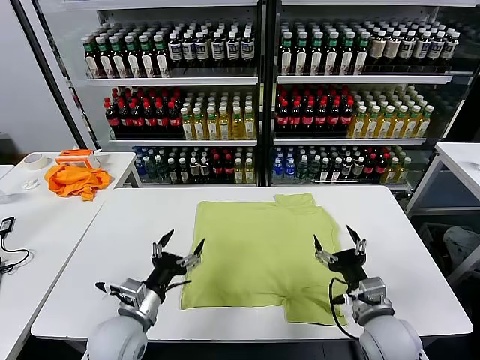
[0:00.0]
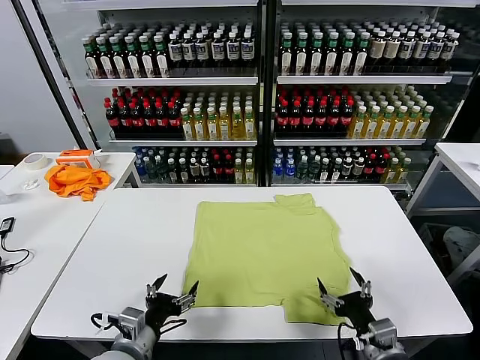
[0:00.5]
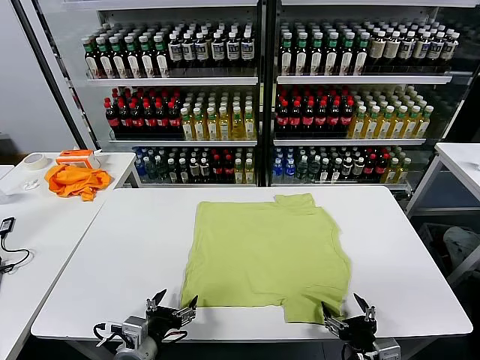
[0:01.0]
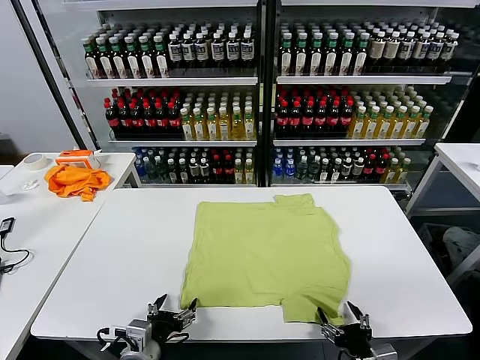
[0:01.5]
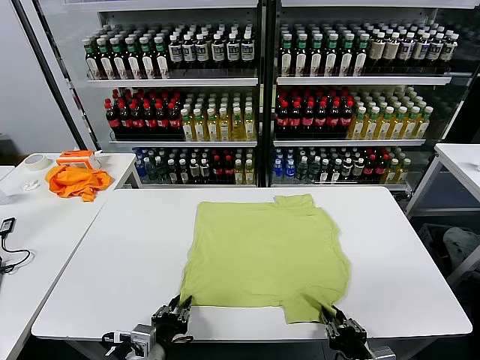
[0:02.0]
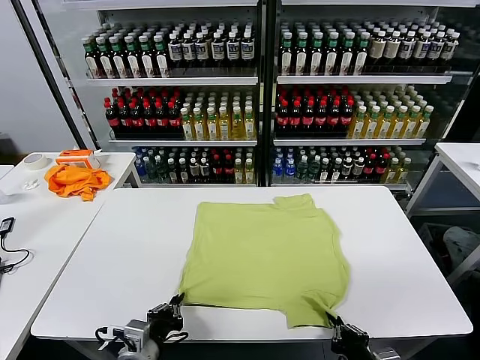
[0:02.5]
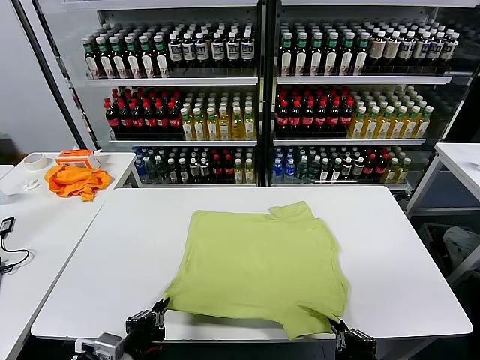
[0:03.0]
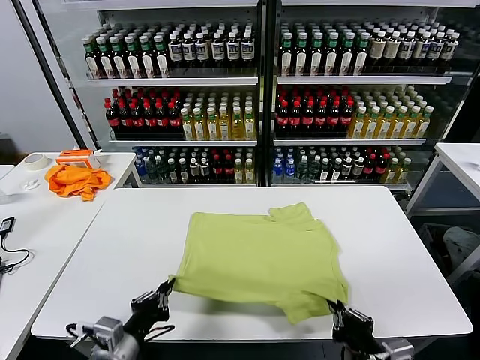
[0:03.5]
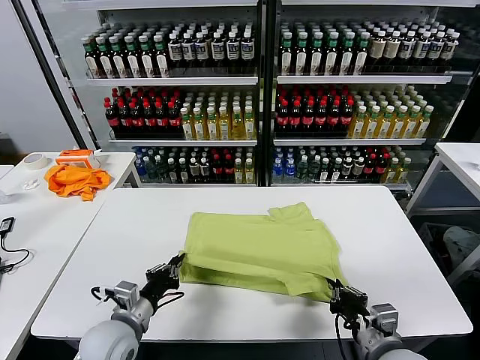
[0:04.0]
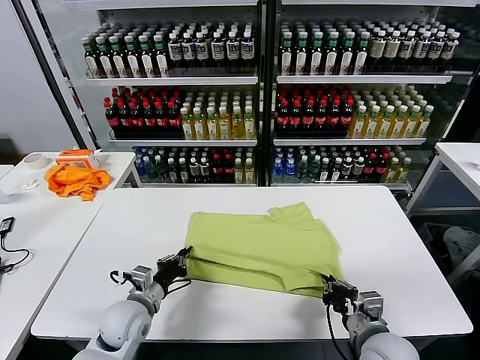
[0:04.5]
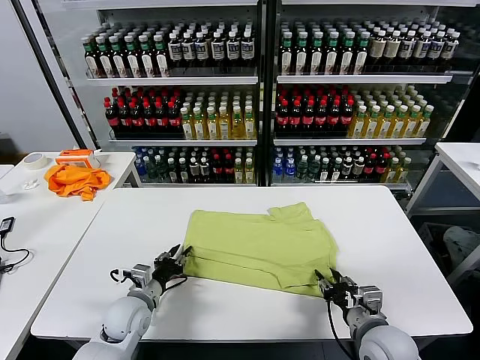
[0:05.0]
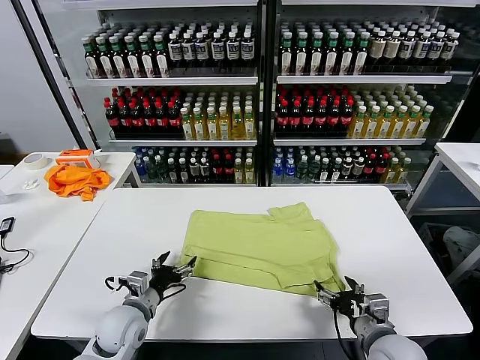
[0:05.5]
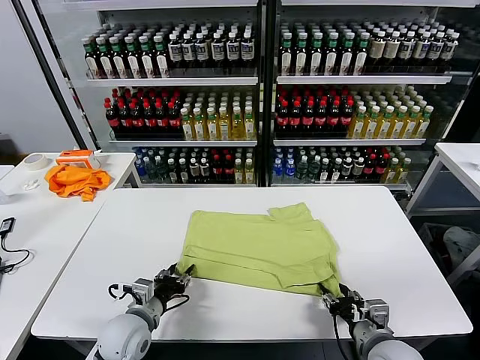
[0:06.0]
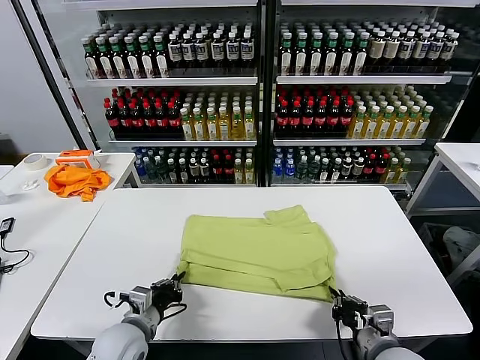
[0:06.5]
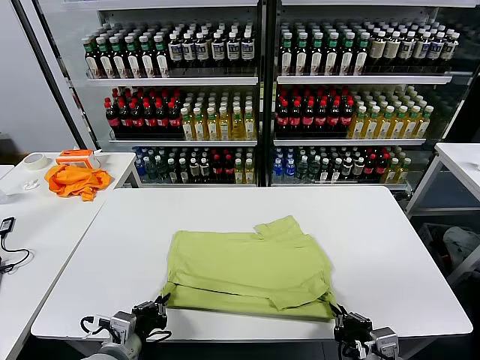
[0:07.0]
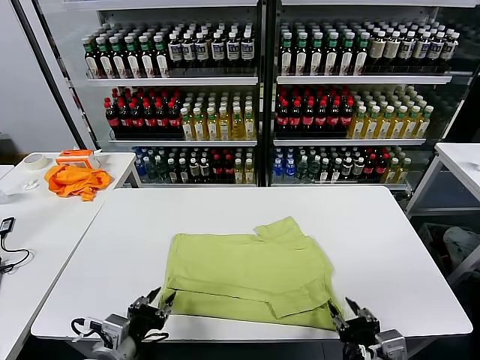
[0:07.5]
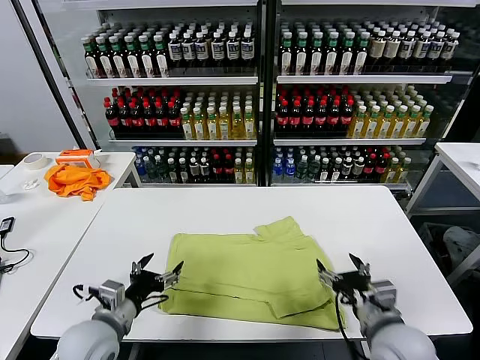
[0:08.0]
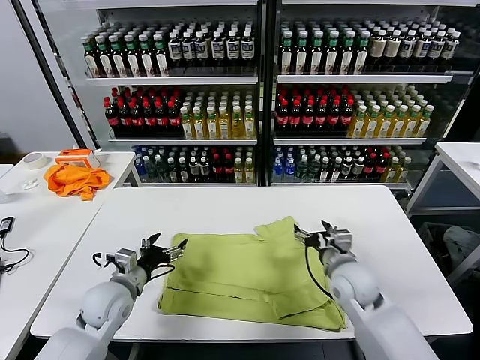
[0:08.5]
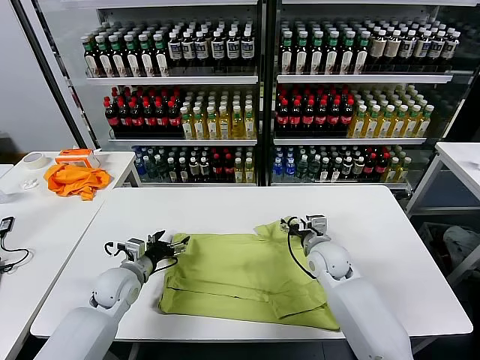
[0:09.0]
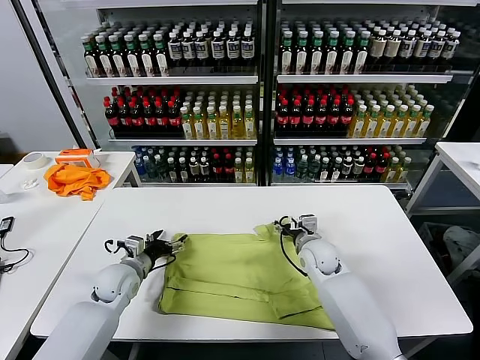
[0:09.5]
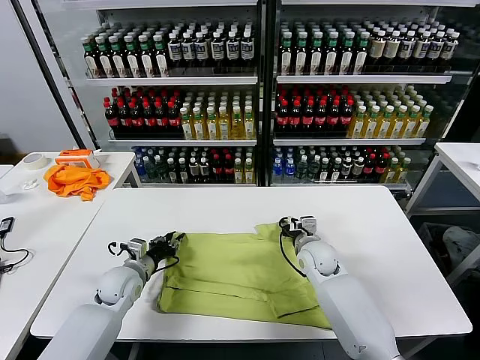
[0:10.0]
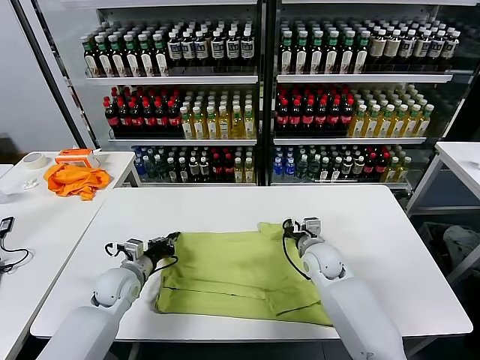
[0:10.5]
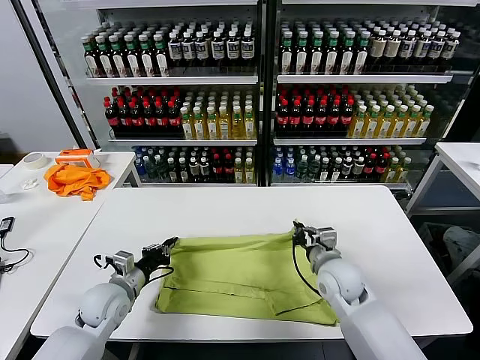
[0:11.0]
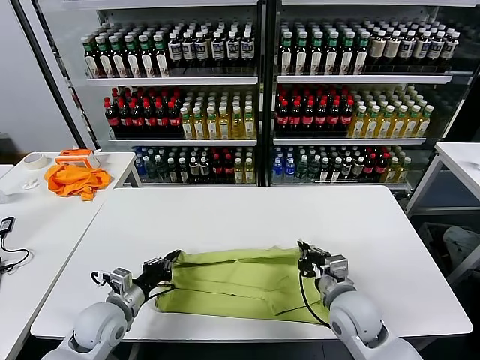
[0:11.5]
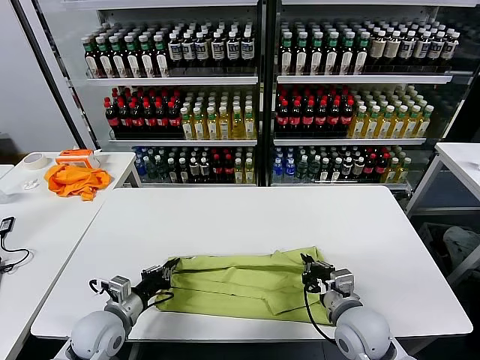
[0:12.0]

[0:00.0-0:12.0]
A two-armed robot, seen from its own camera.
Task of the whole recording: fold and organize the clothes.
Step, 0:00.0 to 0:02.0: use both grippers simultaneously to clamp the lower edge of the clothing fabric.
Step, 0:02.5 to 0:04.5: use both grippers to drag the lower edge of the fabric forward and fold it over the upper edge.
Step, 0:05.0 to 0:07.0: Drag the clothes downward with both gripper.
Step, 0:07.5 to 0:10.0: use both grippers simultaneously to clamp the upper edge of the clothing fabric.
0:02.0 to 0:04.0: The left gripper shifts roughly 10 cm forward, while the right gripper moves forward and upward, roughly 10 cm.
0:04.0 to 0:06.0: The right gripper opens its fingers; the left gripper opens up.
0:06.0 to 0:08.0: Both grippers move upward, about 5 cm. The left gripper moves about 10 cm backward and comes back, and opens its fingers, while the right gripper opens up.
0:08.0 to 0:10.0: The right gripper heads forward, covering approximately 20 cm, and closes, while the left gripper is displaced forward and downward by some 15 cm, and closes up.
0:10.0 to 0:12.0: The right gripper heads backward, covering approximately 20 cm. The left gripper travels backward by some 10 cm.

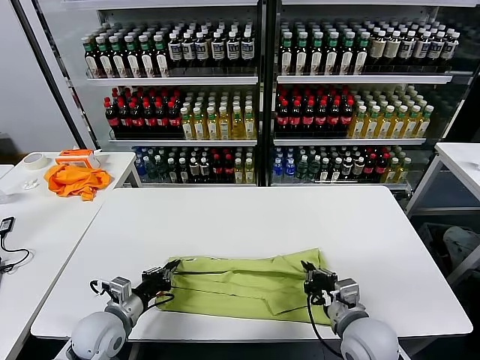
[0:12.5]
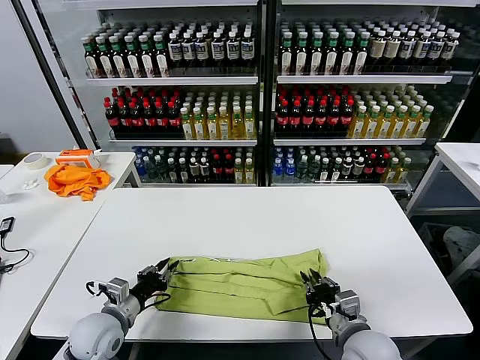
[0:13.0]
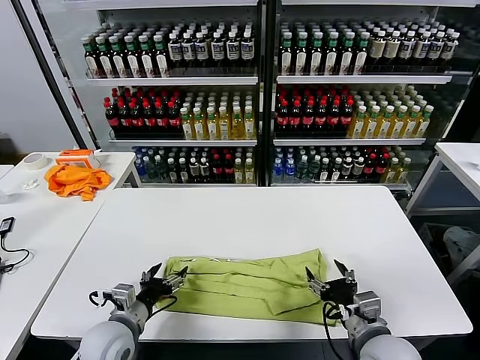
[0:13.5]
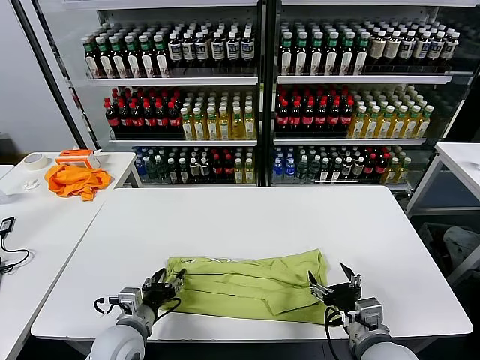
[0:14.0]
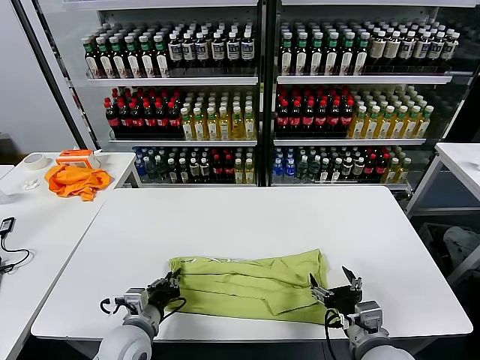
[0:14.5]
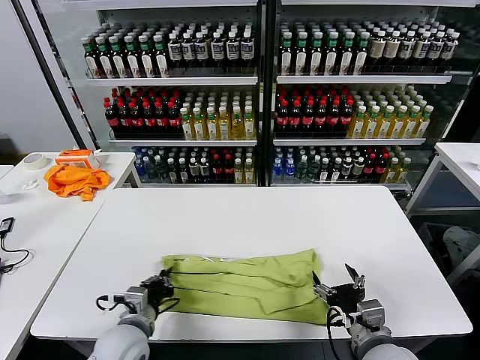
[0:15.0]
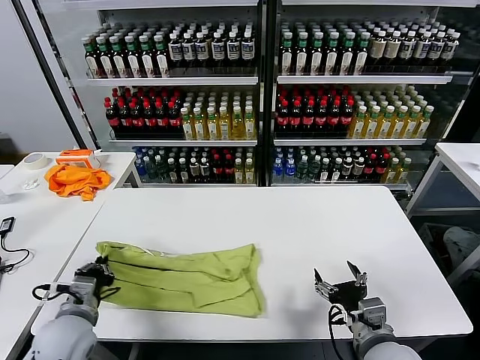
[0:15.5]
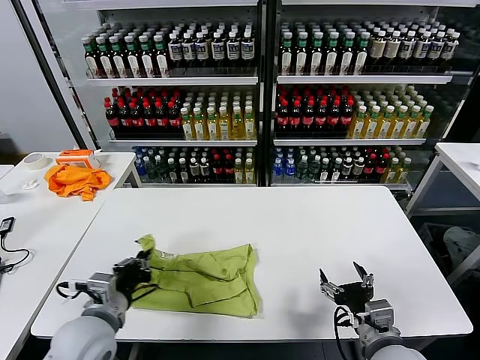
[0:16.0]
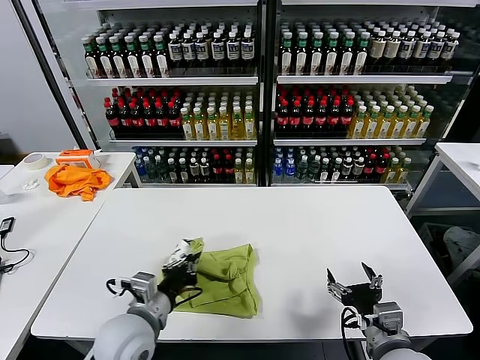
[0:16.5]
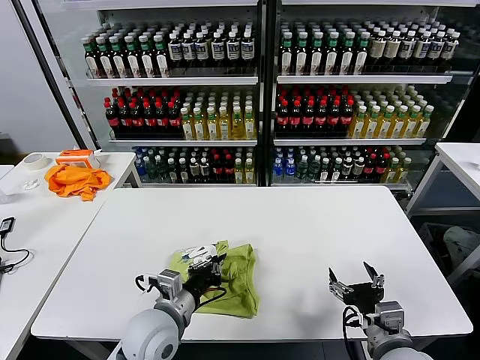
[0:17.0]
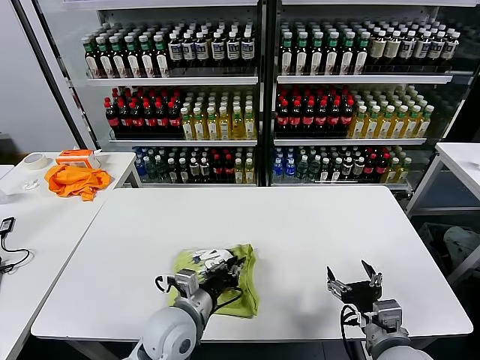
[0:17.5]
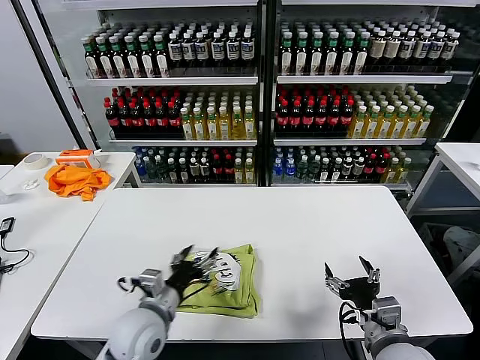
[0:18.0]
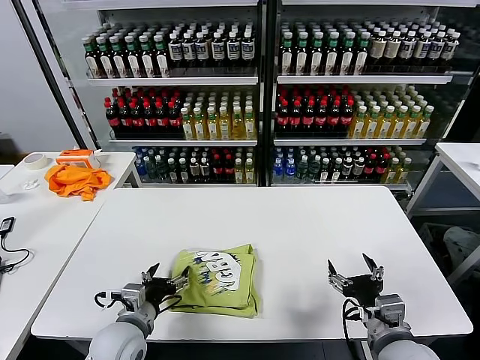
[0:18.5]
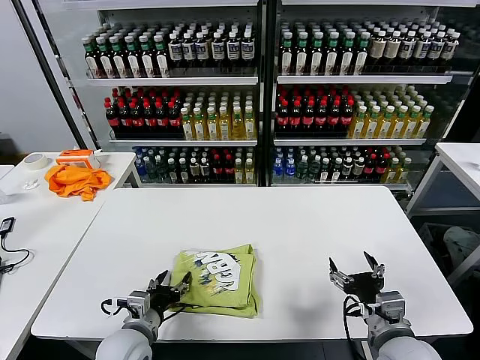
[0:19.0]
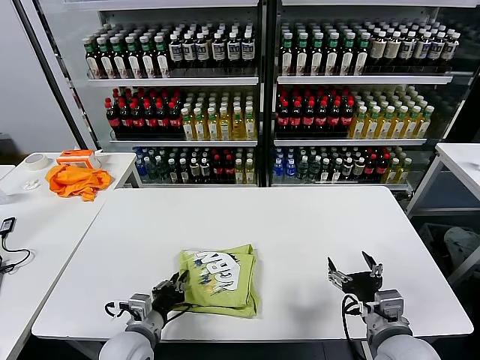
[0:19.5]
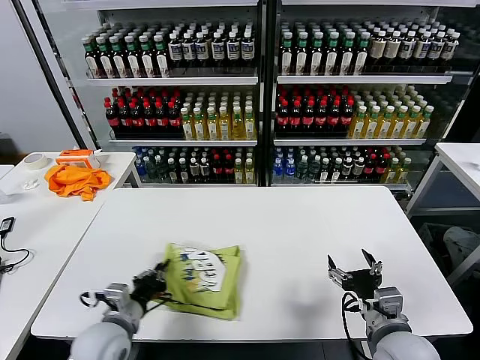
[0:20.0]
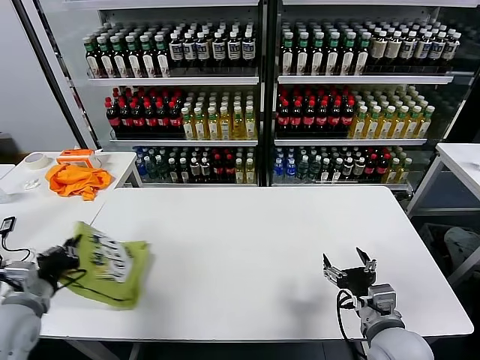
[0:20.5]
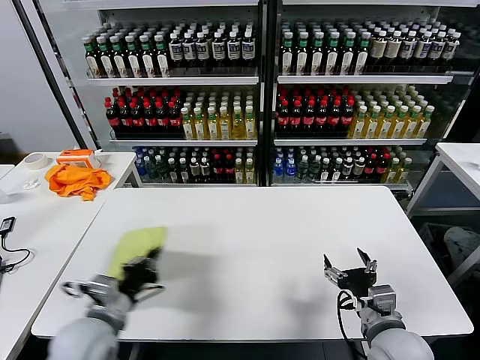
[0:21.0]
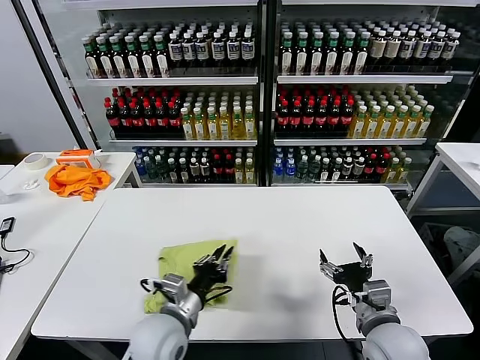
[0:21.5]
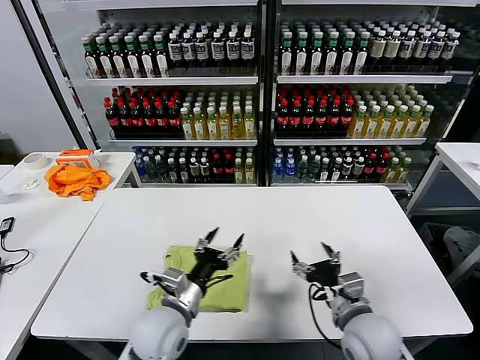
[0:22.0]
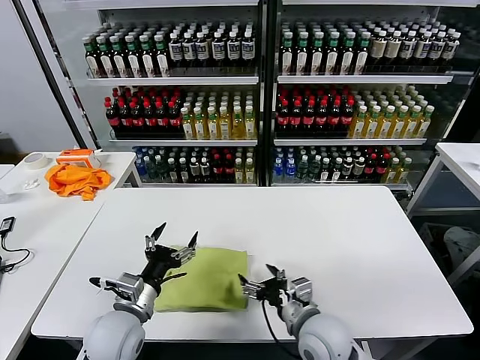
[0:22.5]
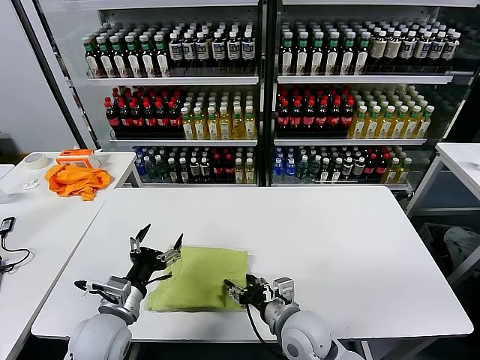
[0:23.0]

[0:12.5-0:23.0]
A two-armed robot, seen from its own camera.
Task of the whole recording: fold and organize the clothes.
Step, 0:13.5 to 0:14.5: use the left gripper to clamp the left edge of the fabric.
Step, 0:15.0 to 0:17.5: use the left gripper to drag the left edge of the fabric to the left and folds it over the right edge.
Step, 0:18.0 to 0:21.5: Flip the folded clothes over with left gripper.
0:12.5 to 0:14.5: The left gripper goes approximately 5 cm to the right, and opens, then closes again, while the right gripper changes place by approximately 5 cm, and opens its fingers.
0:14.5 to 0:16.5: The left gripper shifts about 10 cm upward, and moves approximately 10 cm to the left and comes back.
0:16.5 to 0:19.0: The left gripper is displaced downward by approximately 10 cm, reaches roughly 5 cm to the right, then returns, and opens up.
0:19.0 to 0:21.0: The left gripper heads upward, covering about 10 cm, reaches some 15 cm to the left, then returns, and closes up.
0:21.0 to 0:23.0: The right gripper shifts roughly 15 cm to the left, while the left gripper moves roughly 15 cm to the right and comes back, and opens up.

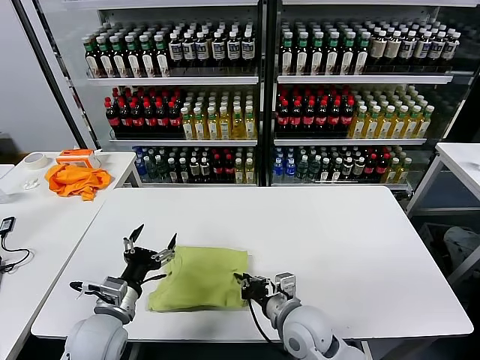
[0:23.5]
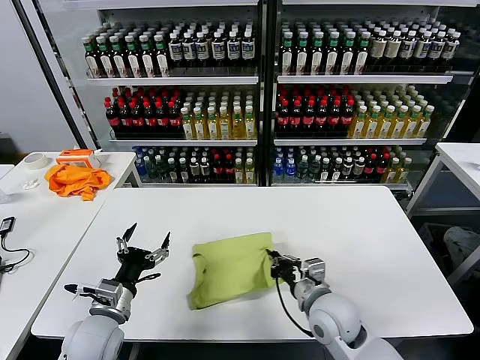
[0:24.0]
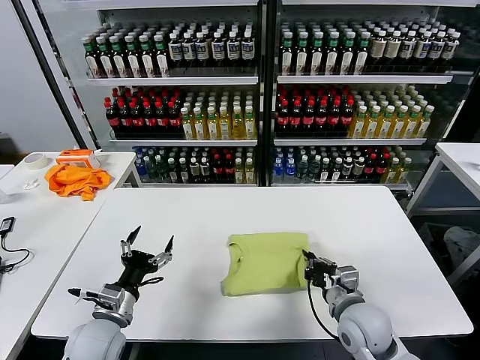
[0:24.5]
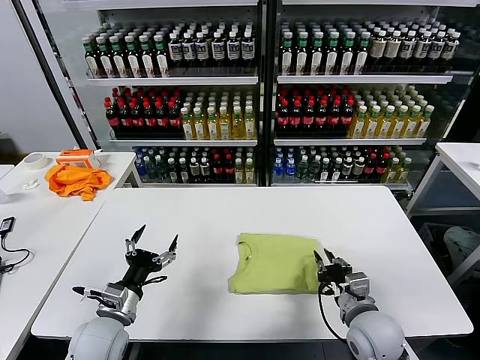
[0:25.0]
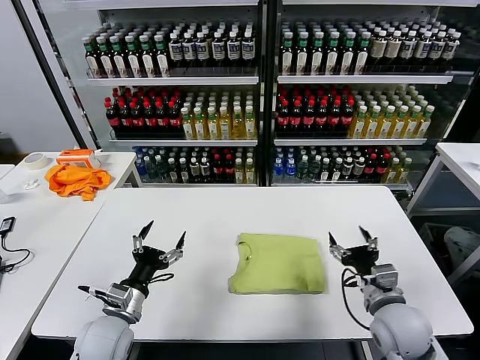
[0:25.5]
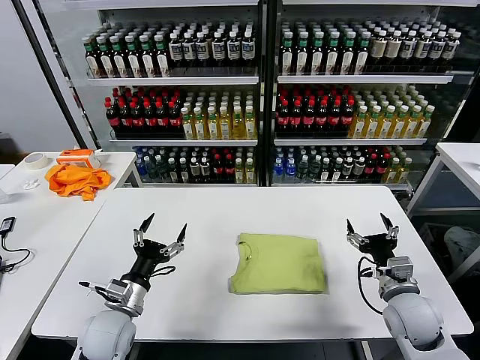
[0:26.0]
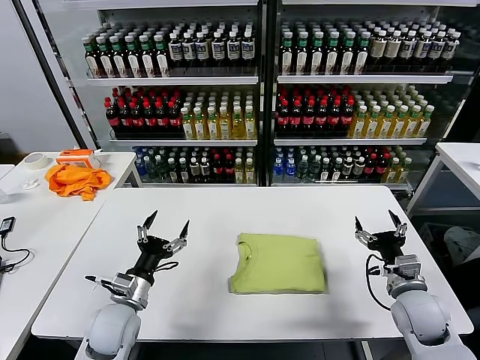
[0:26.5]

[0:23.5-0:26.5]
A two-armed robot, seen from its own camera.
Task of the whole recording: fold and organize the clothes.
0:23.5 to 0:25.0: The right gripper goes approximately 15 cm to the right.
0:25.0 to 0:26.5: The right gripper travels to the right by some 10 cm, and opens.
